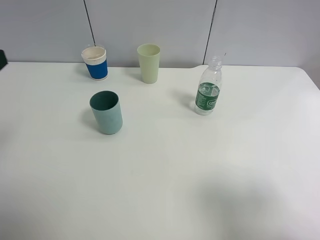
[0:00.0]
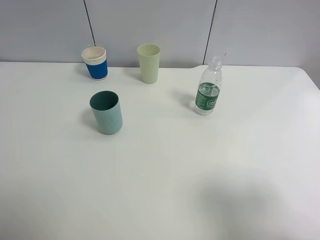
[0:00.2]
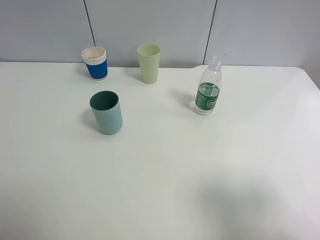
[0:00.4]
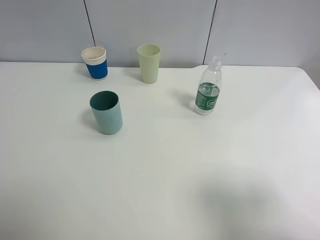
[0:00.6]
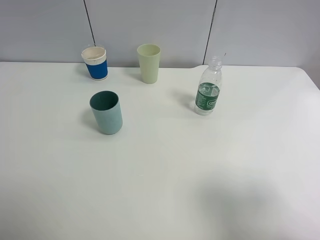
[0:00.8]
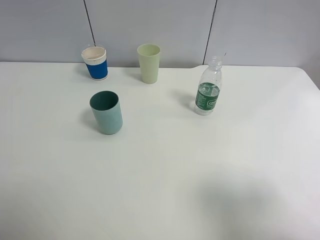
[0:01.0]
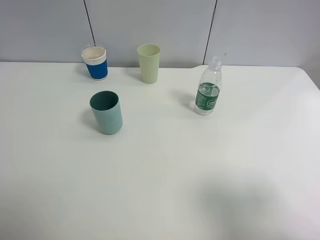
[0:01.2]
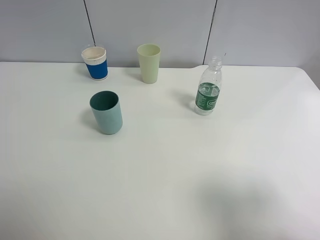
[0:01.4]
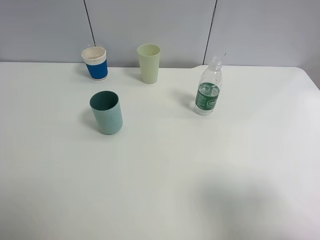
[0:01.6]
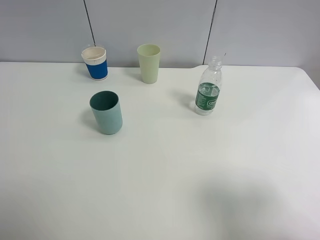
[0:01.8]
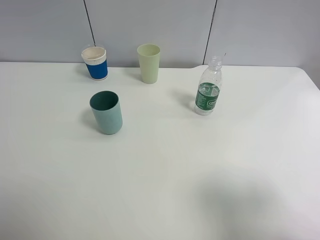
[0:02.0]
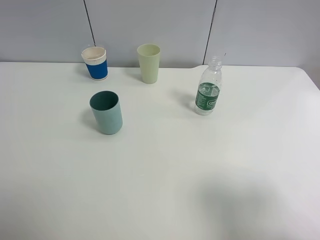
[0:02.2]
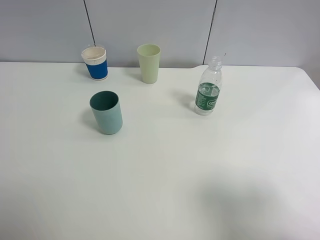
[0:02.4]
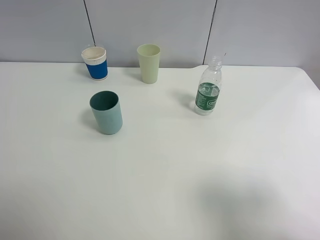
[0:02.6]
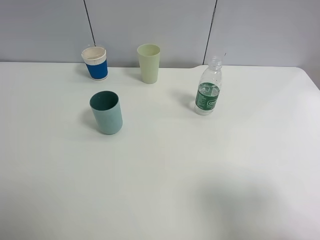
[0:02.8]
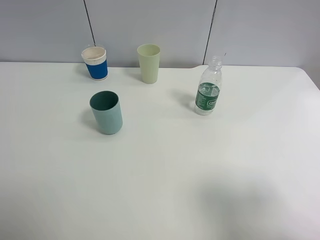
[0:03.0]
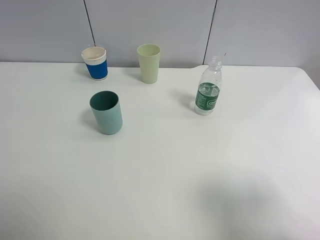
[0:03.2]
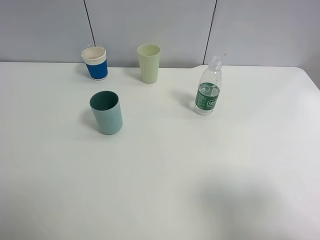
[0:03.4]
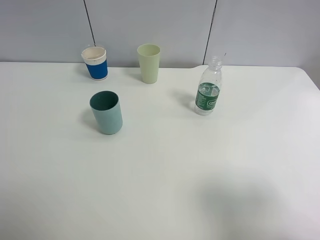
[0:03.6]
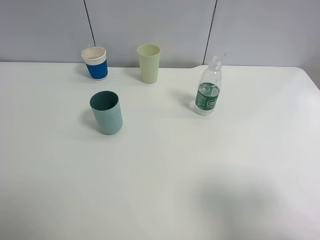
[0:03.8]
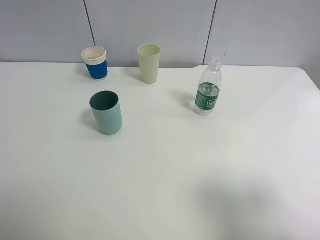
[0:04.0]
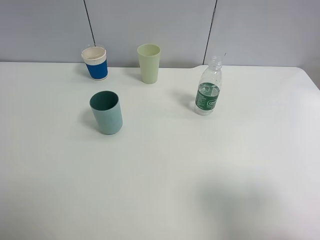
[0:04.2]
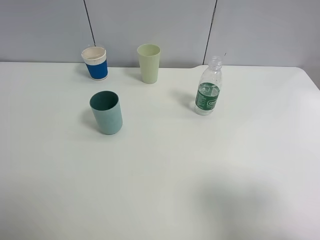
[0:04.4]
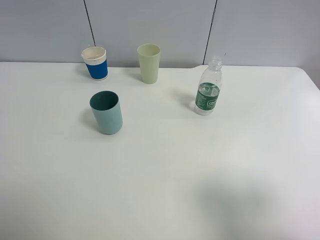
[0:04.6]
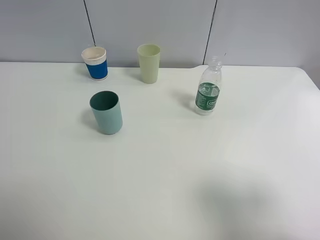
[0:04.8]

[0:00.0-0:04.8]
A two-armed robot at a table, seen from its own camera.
Task of the whole recording: use a clamp to hold the bottle of the drink, pour the beverage into a random cup, then clamp the cup containing the drink and pour the drink into another random cup.
0:03.2 to 0:04.8: Both grippers stay about where they are.
